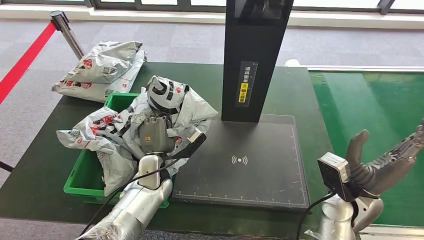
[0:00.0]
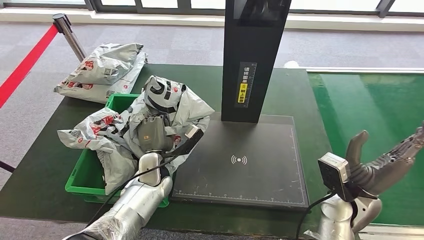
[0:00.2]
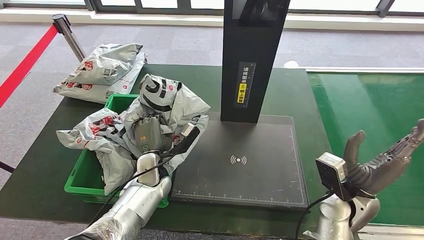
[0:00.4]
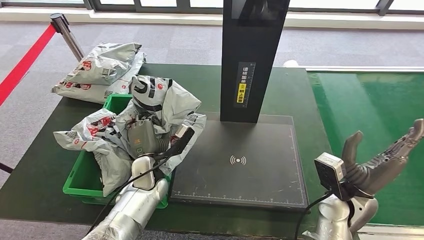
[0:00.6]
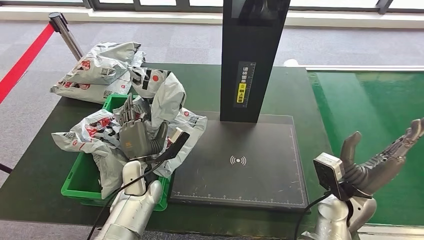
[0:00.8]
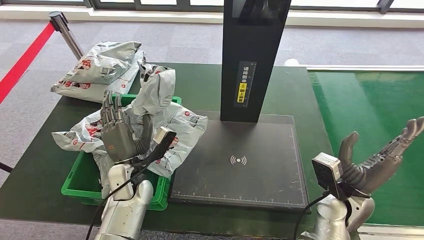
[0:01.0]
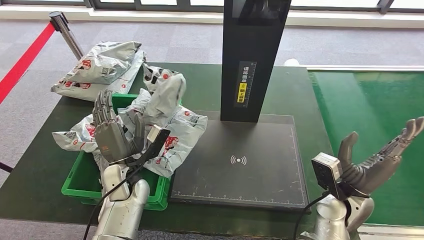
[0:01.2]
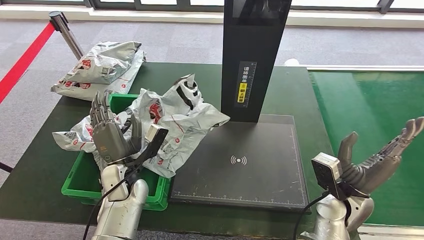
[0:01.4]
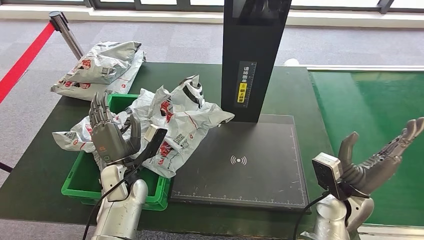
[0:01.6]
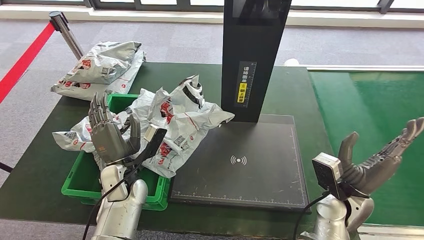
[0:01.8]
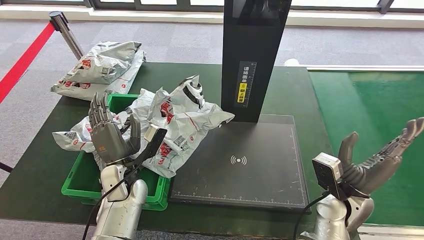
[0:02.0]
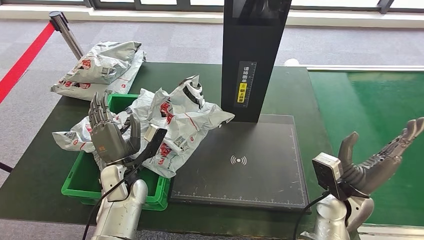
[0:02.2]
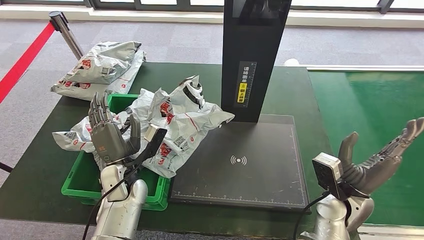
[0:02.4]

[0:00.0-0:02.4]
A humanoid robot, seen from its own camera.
Step, 0:00.0 to 0:02.4: Place the parcel into the delivery box.
0:00.0 to 0:01.2: The left hand moves to the left, about 5 cm.
0:01.2 to 0:02.4: Both hands stay put.
